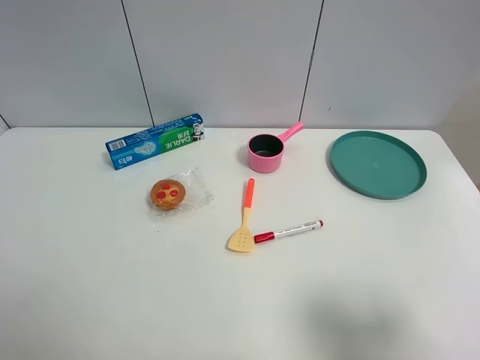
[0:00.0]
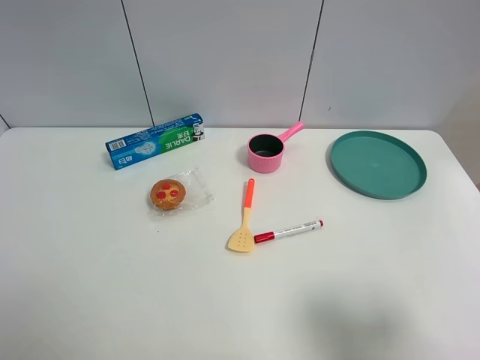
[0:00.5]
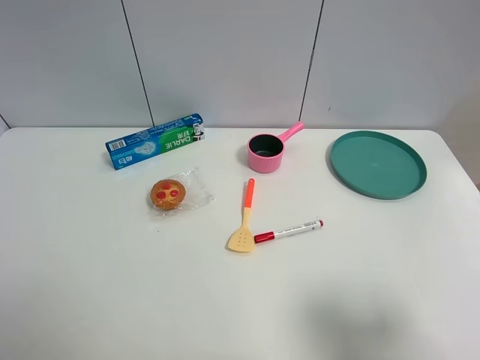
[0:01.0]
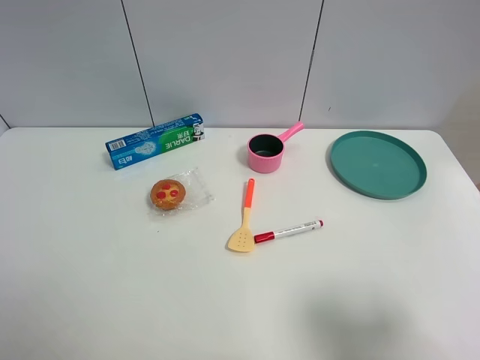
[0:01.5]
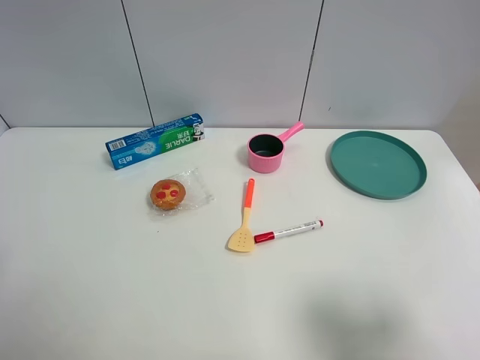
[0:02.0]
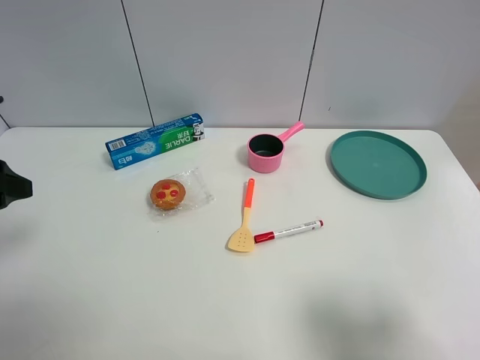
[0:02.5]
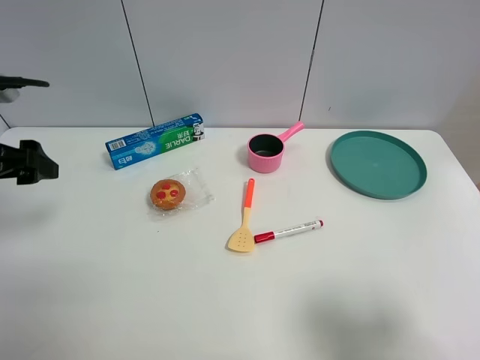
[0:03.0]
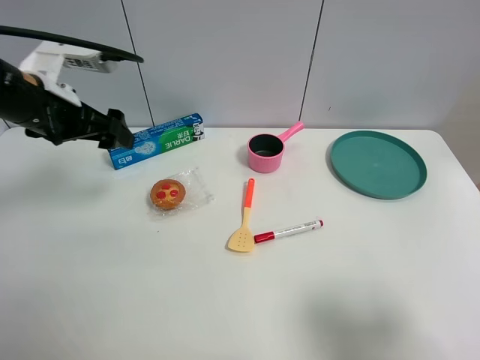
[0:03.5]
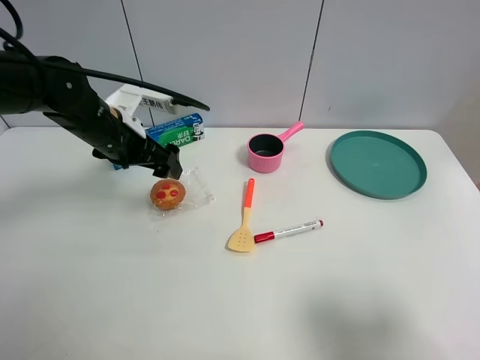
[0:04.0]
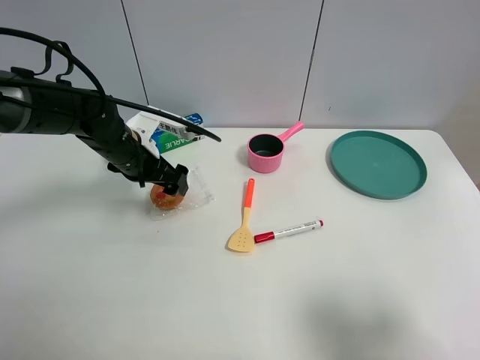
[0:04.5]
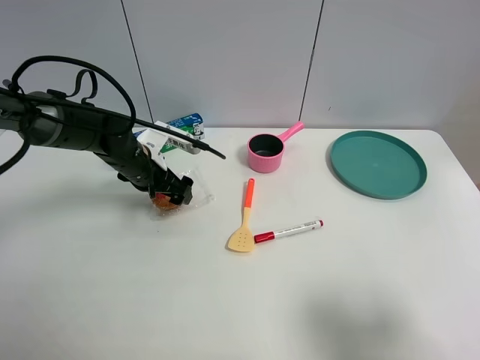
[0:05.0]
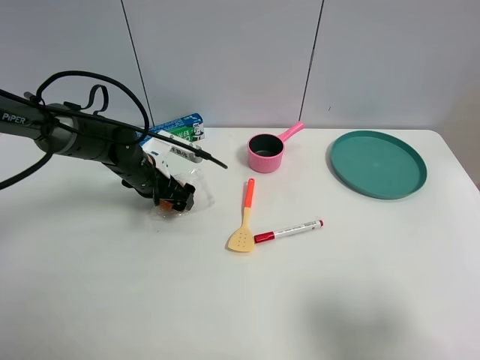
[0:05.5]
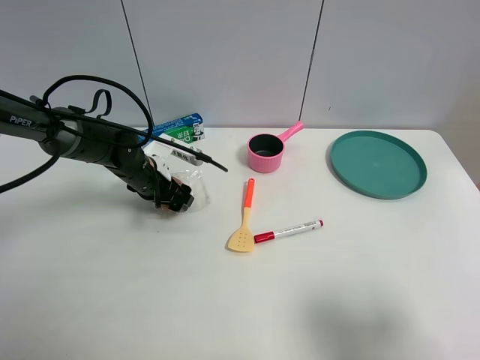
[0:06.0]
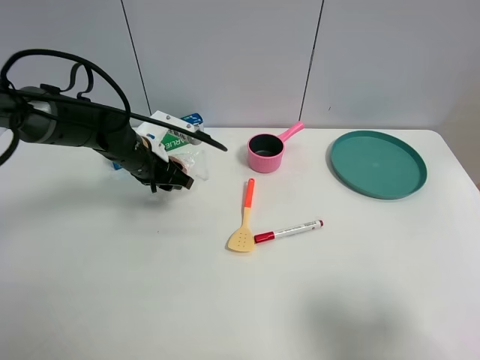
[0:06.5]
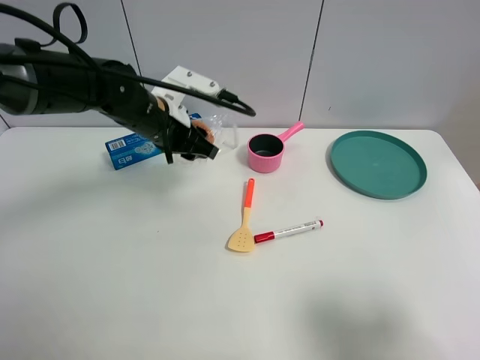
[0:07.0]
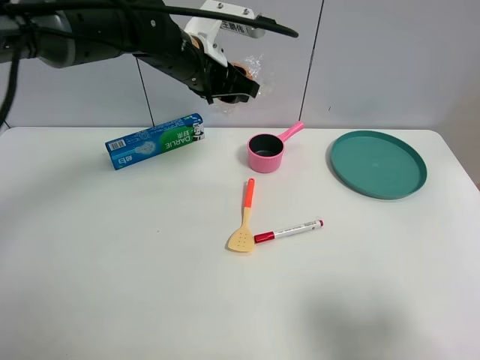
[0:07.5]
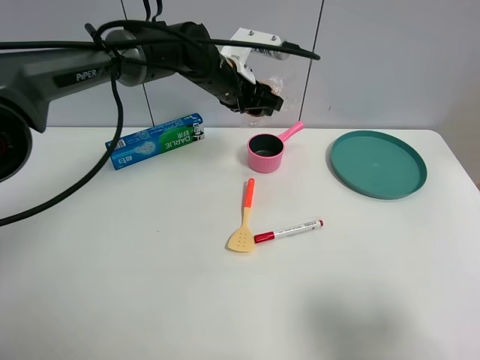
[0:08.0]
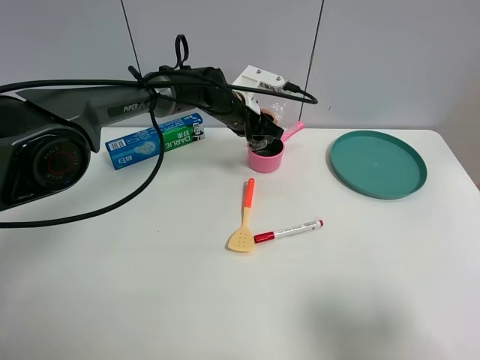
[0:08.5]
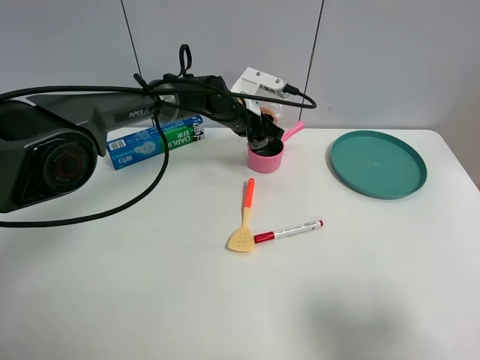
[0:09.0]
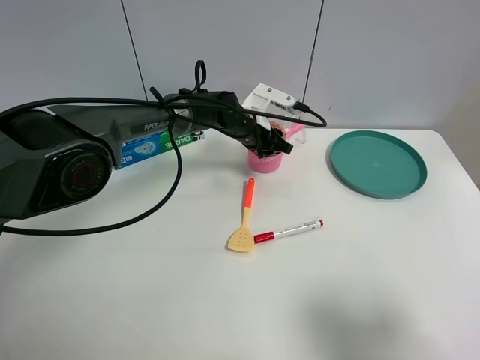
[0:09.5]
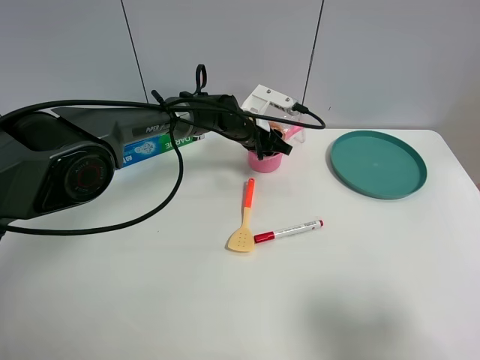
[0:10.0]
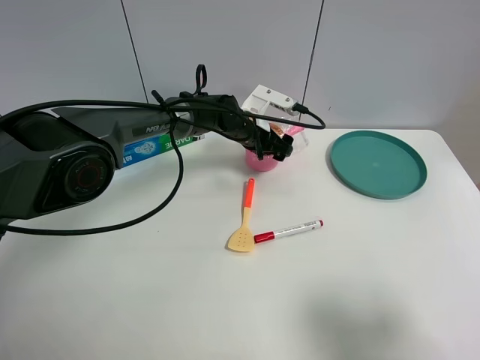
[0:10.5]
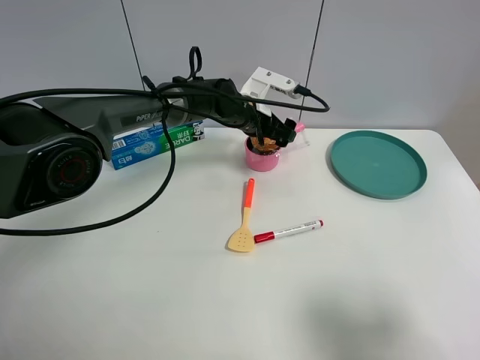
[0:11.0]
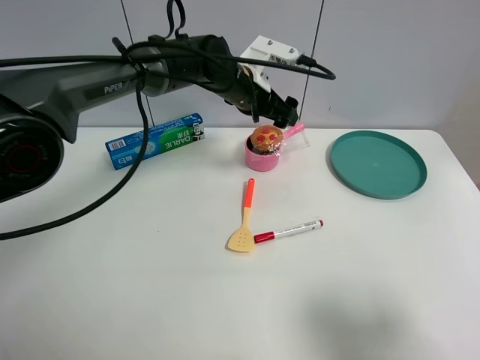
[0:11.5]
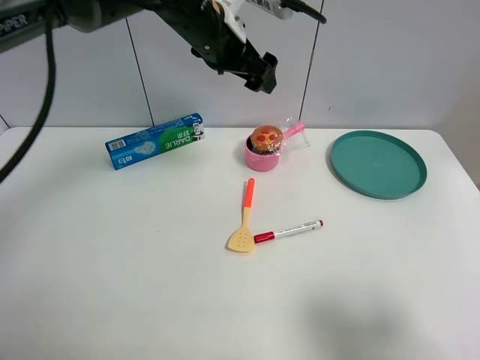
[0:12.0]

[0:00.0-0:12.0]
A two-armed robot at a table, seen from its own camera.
Task of the whole recording: the gripper move the object.
Step, 0:00.0 to 0:06.0: Grasp the egg tart with the left gripper.
Step, 0:06.5 to 0:10.5: Place the egg tart into the pink pot with the left gripper.
0:02.0 to 0:04.0: The left gripper travels forward, to the right and downward by roughly 30 cm.
0:04.0 to 0:06.0: The left gripper heads downward, covering approximately 10 cm, and closes.
0:06.0 to 0:08.0: The left gripper is displaced to the right, upward and forward by approximately 20 cm.
0:08.0 to 0:10.0: The left gripper moves downward, approximately 10 cm.
0:10.0 to 0:12.0: The left gripper is displaced upward by approximately 20 cm, and opens its fingers.

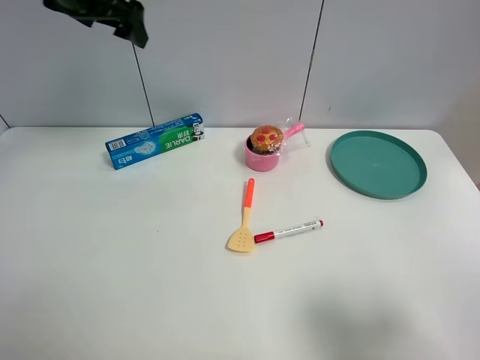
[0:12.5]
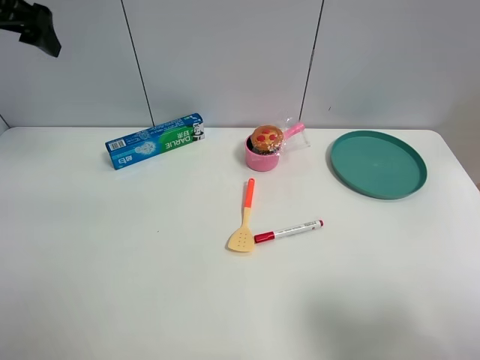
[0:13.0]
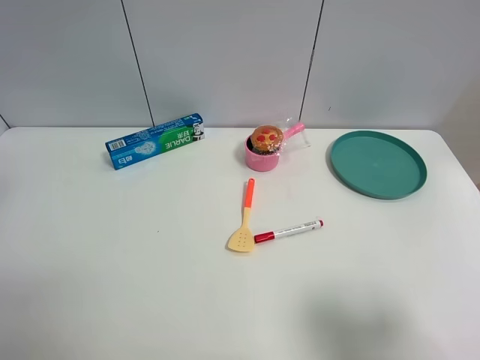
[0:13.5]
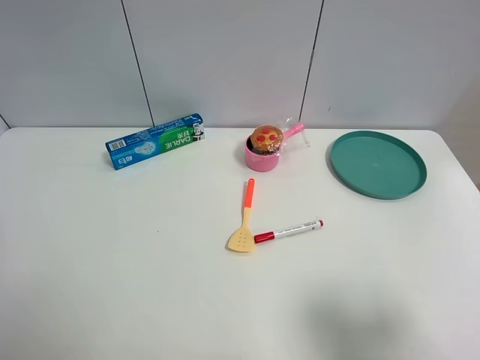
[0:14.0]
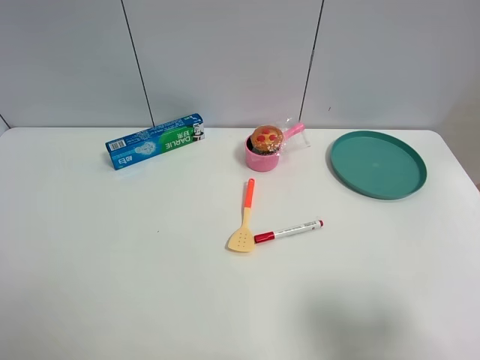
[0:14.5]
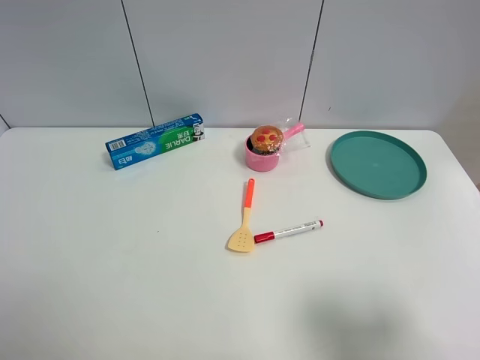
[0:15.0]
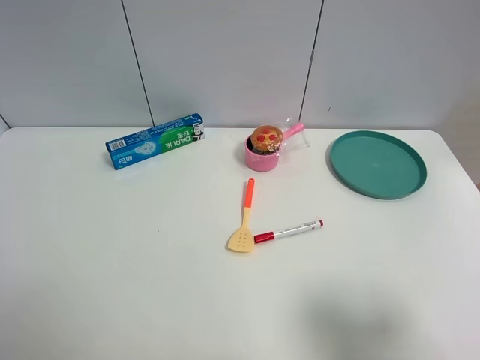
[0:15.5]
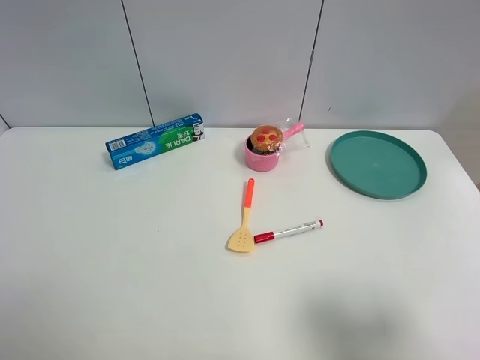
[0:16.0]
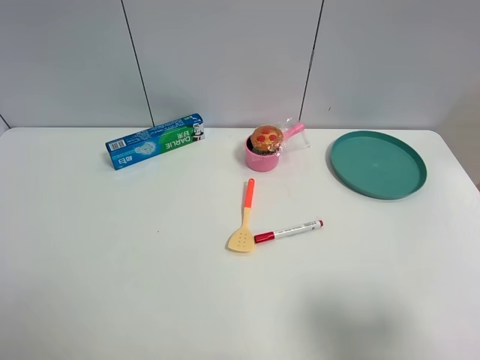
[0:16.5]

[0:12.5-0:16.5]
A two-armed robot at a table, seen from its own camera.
Task of the whole recording: the gripper move the object.
0:12.5 to 0:14.5: The left gripper goes approximately 40 cm backward.

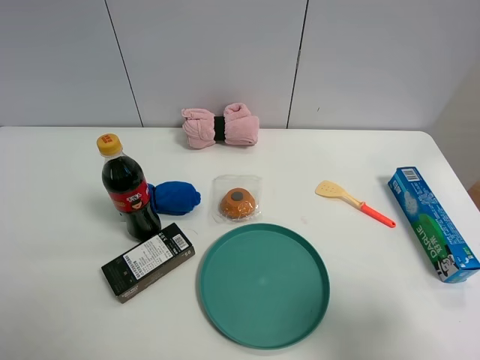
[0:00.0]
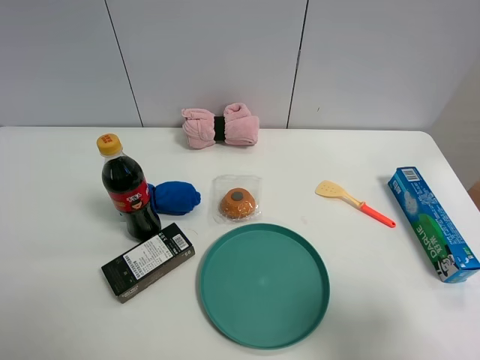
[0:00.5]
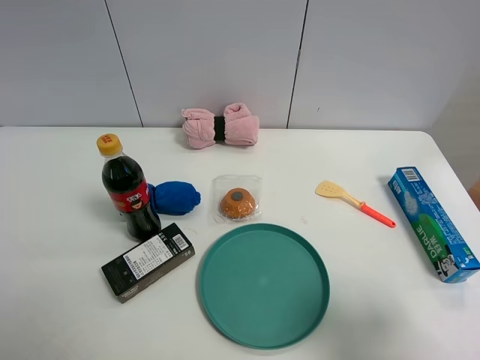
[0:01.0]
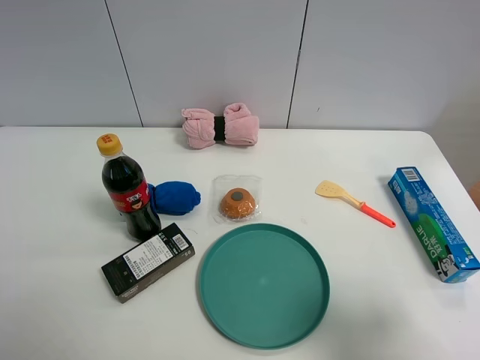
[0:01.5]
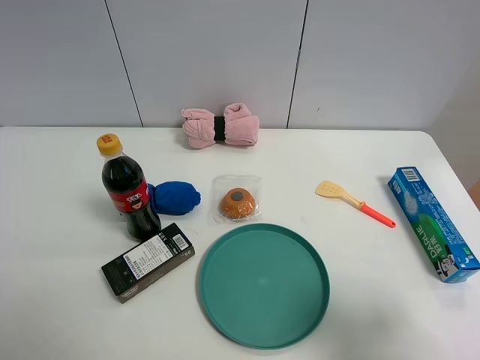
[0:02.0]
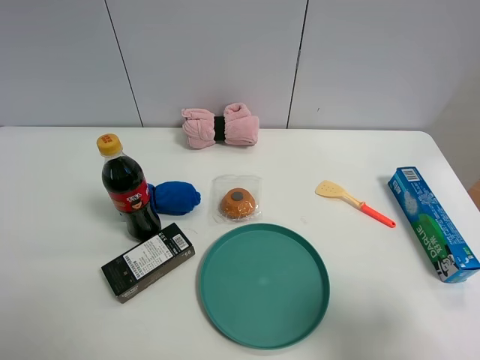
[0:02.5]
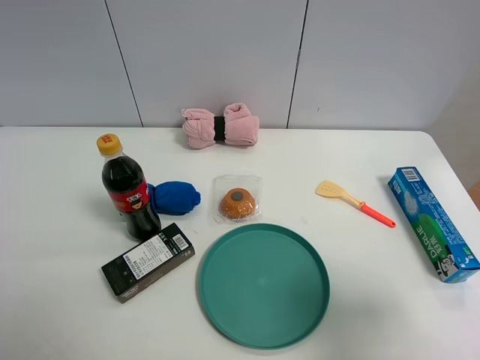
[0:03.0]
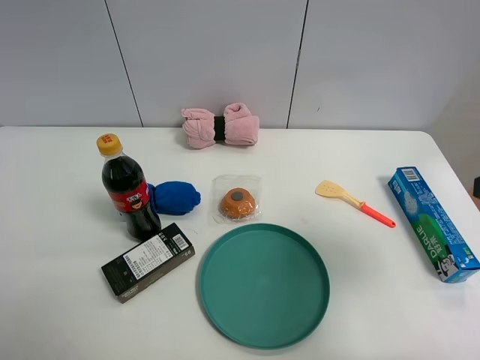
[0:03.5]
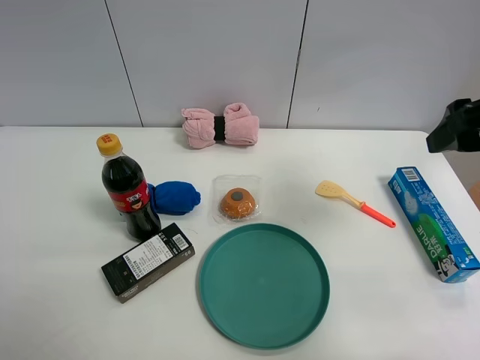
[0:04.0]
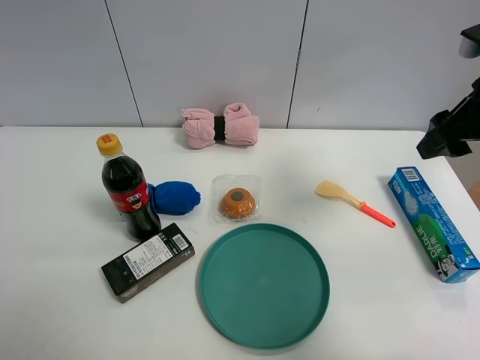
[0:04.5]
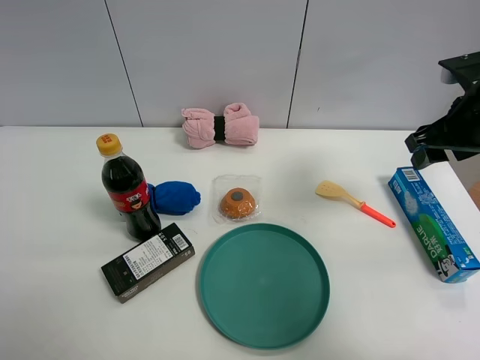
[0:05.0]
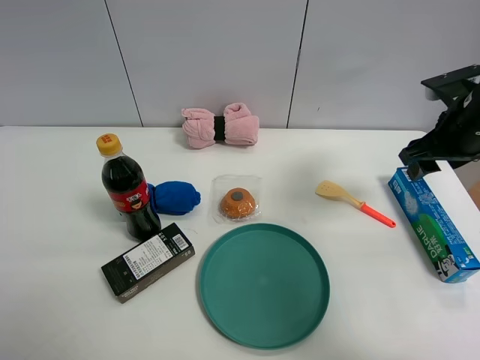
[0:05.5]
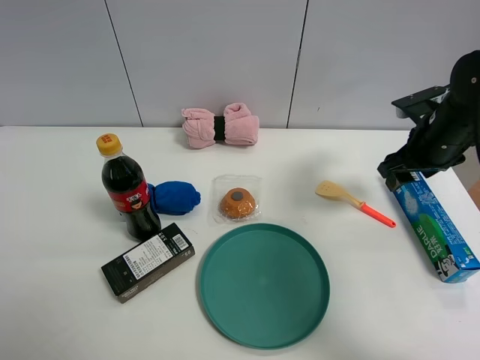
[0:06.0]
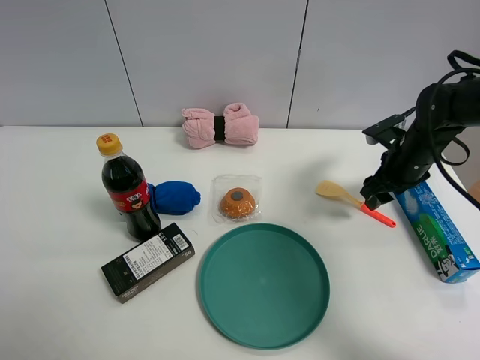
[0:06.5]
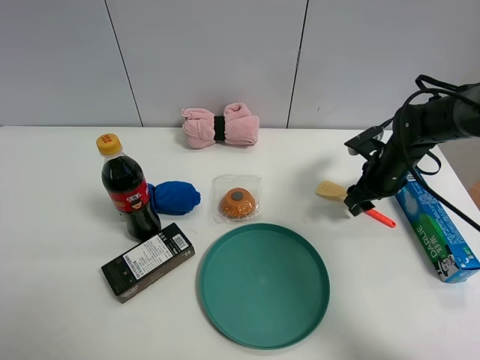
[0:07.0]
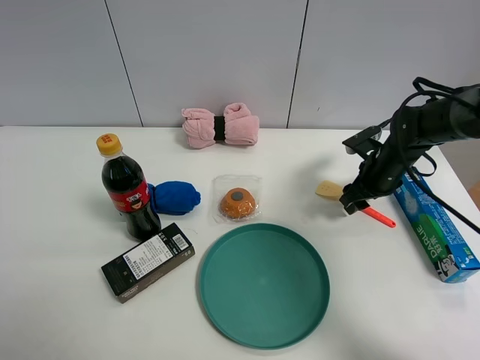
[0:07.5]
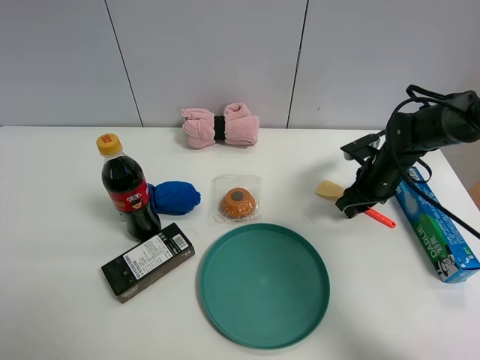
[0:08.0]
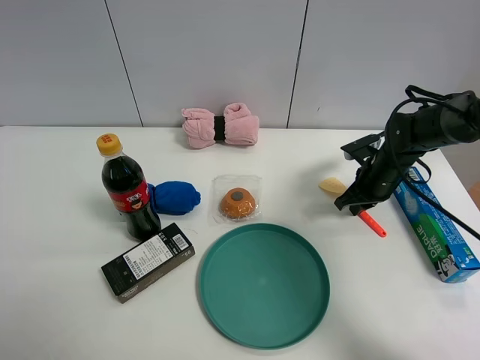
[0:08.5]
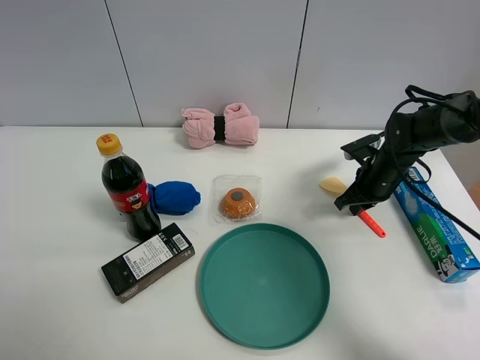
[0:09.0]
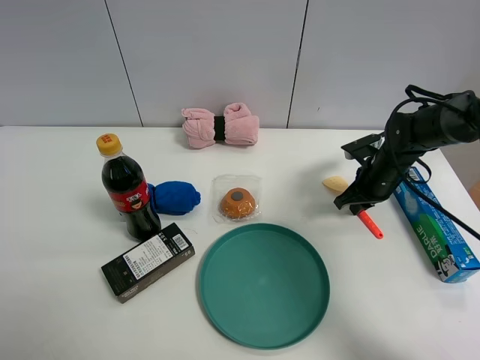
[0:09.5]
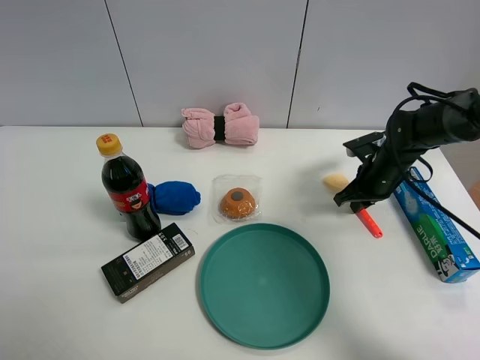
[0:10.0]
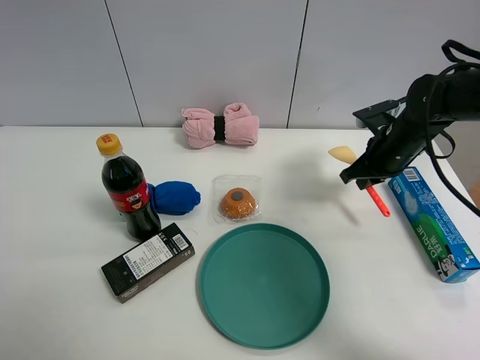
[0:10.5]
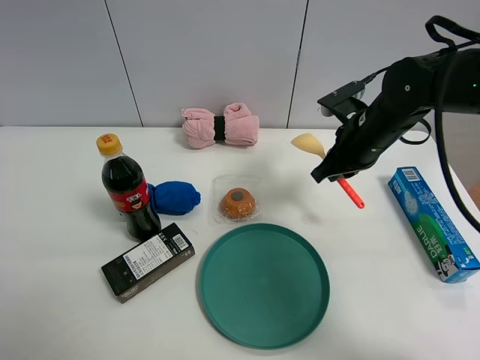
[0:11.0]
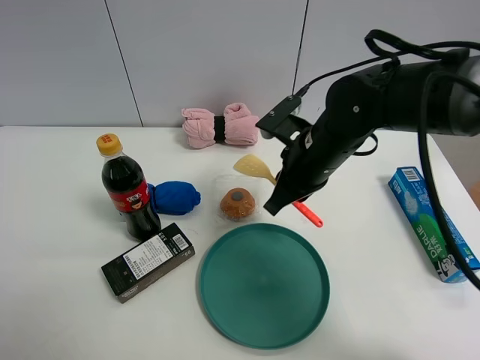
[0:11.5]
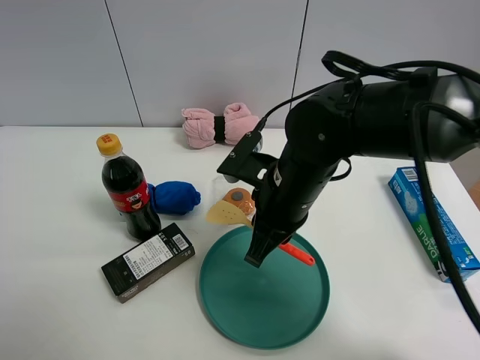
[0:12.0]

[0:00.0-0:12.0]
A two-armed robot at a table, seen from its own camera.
Task of the whole recording: the gripper move the object.
Step, 0:00.0 to 0:08.5: Grasp the cooking shovel with the right gripper.
0:00.0 to 0:02.0: The two grippers keep their place.
0:02.0 to 0:04.0: The right gripper shifts about 20 cm forward.
0:04.0 to 0:06.0: The right gripper goes about 20 cm downward and forward.
0:06.0 to 0:08.0: The right gripper shifts roughly 10 cm downward.
0:08.0 to 0:10.0: The right gripper closes.
0:10.0 to 0:12.0: The right gripper heads to the left, backward and upward, covering some 25 cm.
